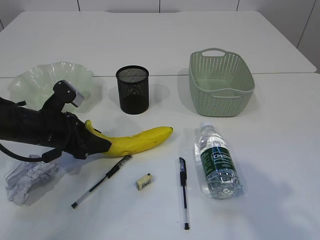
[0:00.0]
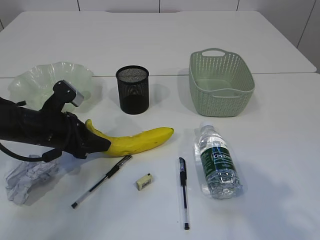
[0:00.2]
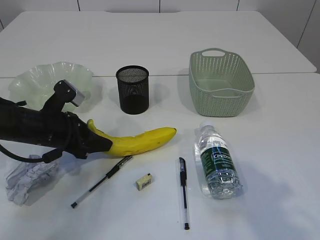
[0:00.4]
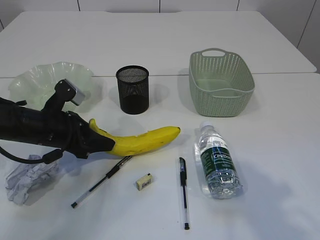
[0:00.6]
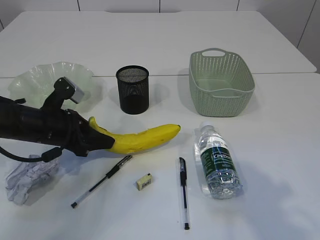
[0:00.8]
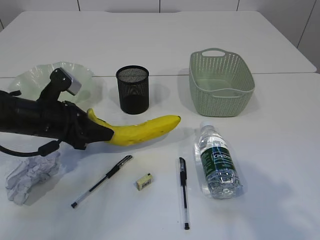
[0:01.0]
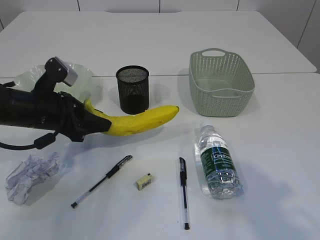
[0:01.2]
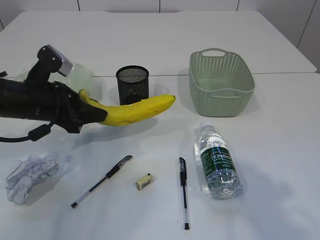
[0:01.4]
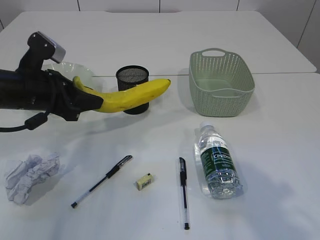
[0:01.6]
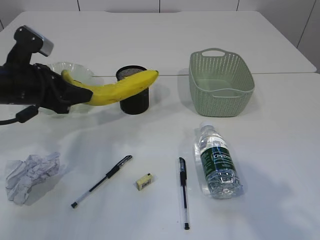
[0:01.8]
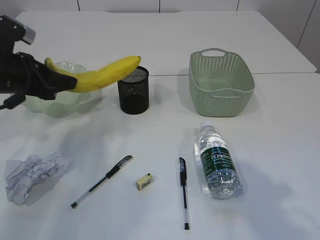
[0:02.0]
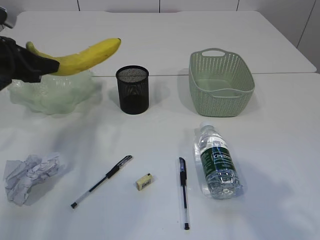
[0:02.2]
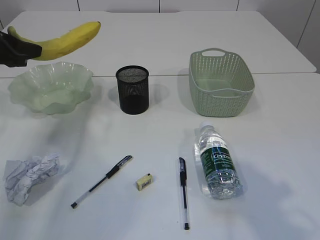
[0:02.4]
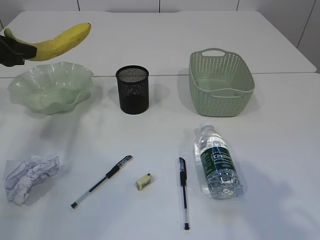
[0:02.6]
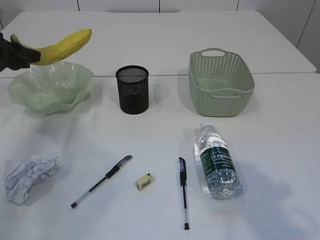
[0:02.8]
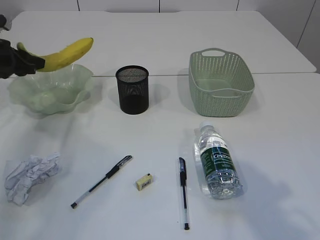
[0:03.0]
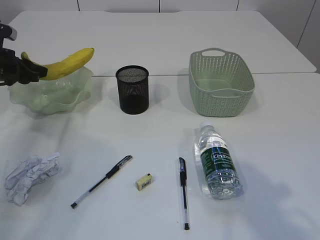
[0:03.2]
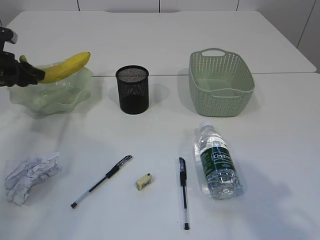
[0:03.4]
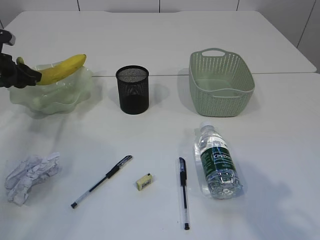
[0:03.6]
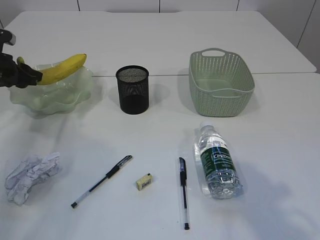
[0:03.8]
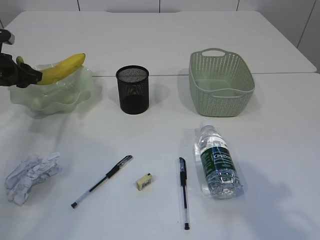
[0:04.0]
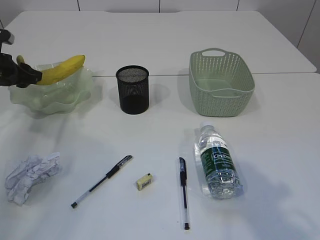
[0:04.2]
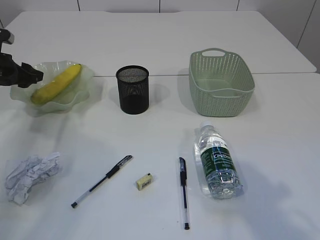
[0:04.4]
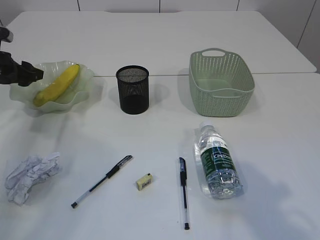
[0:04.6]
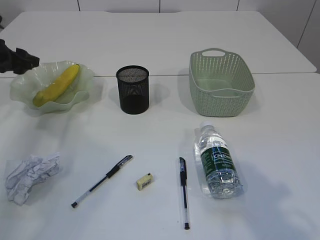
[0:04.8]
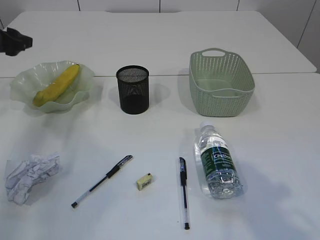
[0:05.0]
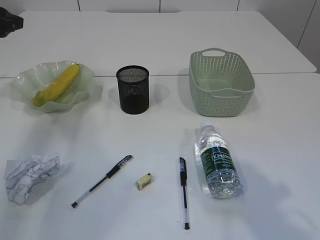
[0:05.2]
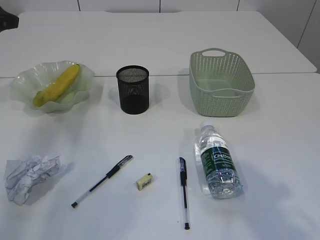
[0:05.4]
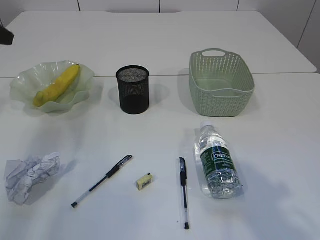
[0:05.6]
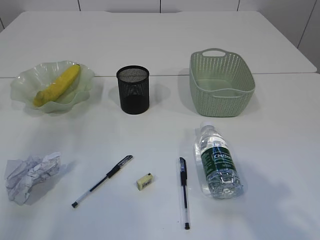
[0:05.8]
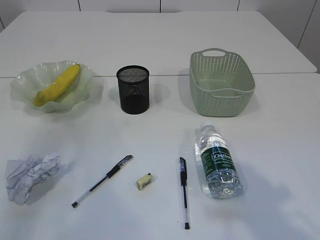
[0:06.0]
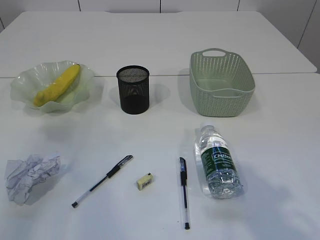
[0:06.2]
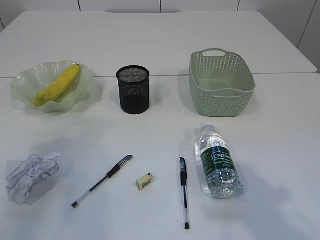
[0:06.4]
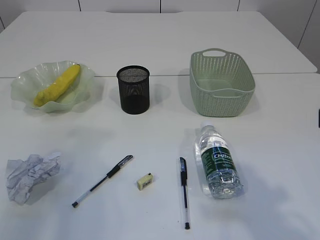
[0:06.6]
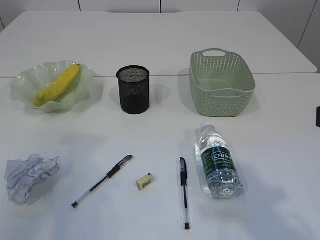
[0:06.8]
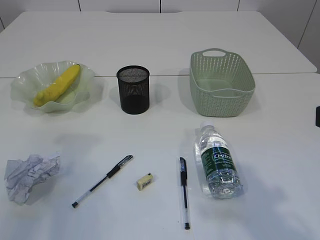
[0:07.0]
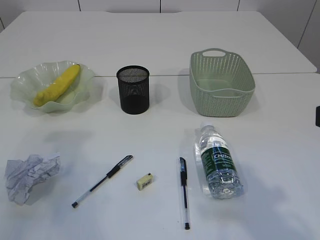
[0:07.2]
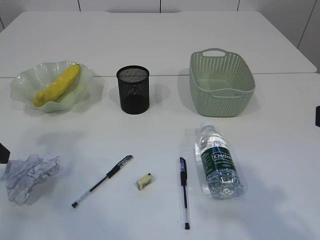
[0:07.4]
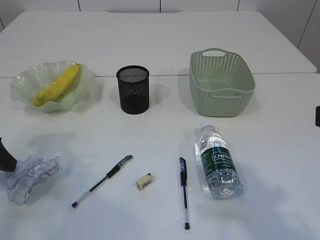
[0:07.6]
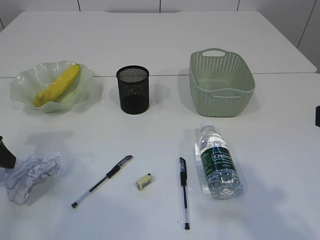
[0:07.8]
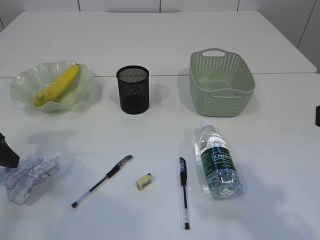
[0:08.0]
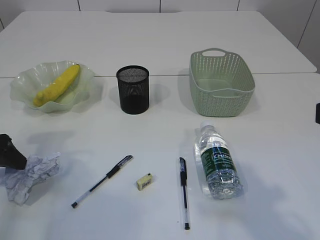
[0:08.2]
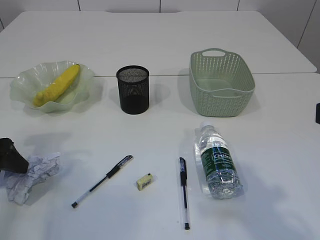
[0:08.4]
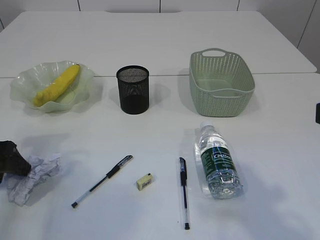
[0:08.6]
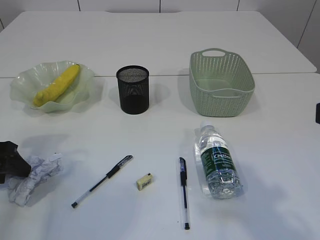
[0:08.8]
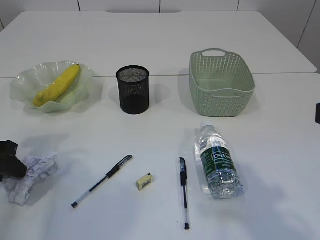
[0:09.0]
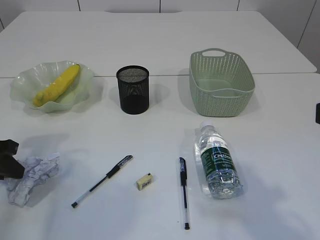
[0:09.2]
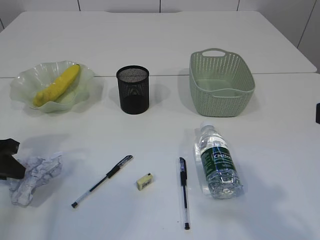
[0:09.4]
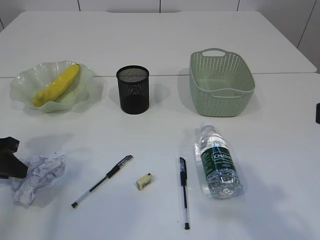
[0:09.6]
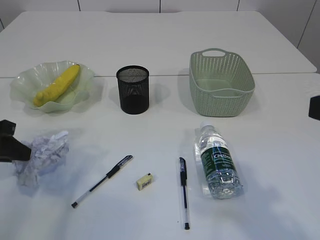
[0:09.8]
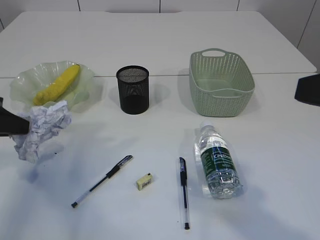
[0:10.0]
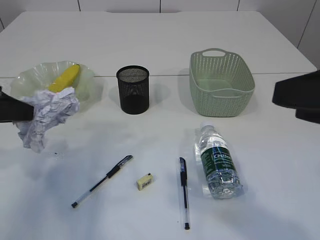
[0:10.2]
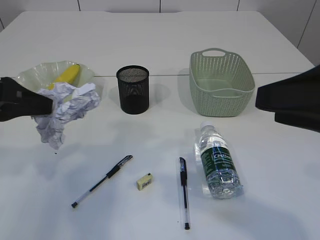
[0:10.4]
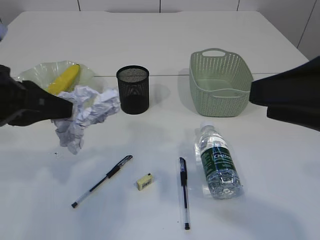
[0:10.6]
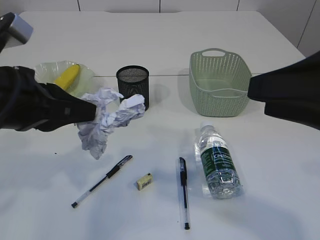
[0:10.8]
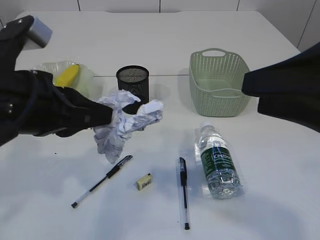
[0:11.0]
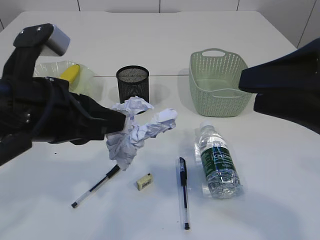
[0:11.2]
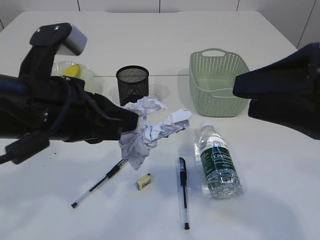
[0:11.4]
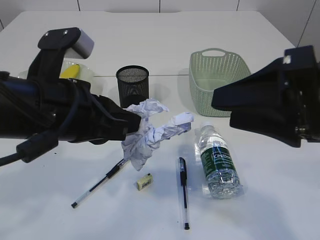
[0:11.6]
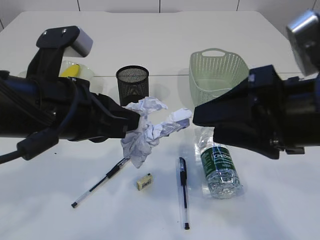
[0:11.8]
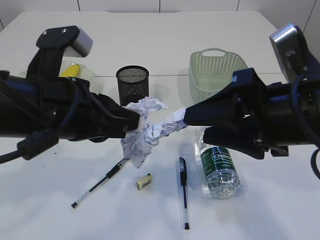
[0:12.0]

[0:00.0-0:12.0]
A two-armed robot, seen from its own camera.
Step, 0:01.6 to 0:04.8: Place the banana in the plate.
Step, 0:05.0 to 0:09.8: Pick up the waste paper.
0:00.0 to 0:01.6: The left gripper moves upward, some 10 cm.
0:01.6 to 0:03.0: The left gripper shifts approximately 15 cm to the left and forward.
0:03.0 to 0:04.4: The grippers make only small movements.
0:04.4 to 0:06.0: The left gripper heads upward and backward, covering approximately 20 cm.
0:06.0 to 0:07.6: The left gripper moves downward and backward, roughly 15 cm.
0:07.6 to 0:09.0: The left gripper closes.
0:09.0 to 0:10.4: The left gripper shifts about 15 cm upward and to the right, and closes.
0:10.4 to 0:12.0: The left gripper moves to the right, roughly 15 cm; the right gripper heads to the left and forward, covering roughly 10 cm.

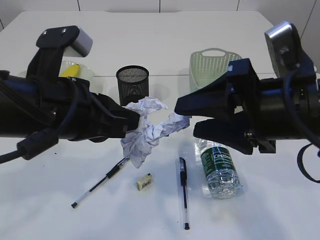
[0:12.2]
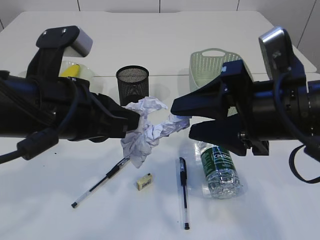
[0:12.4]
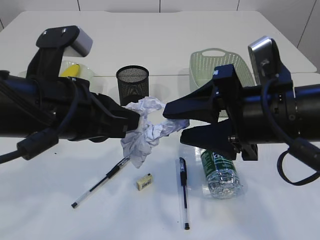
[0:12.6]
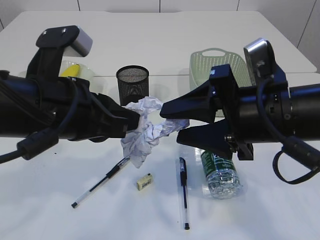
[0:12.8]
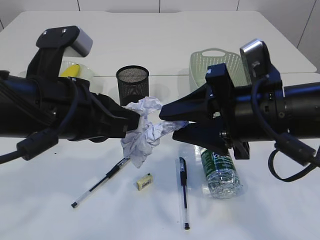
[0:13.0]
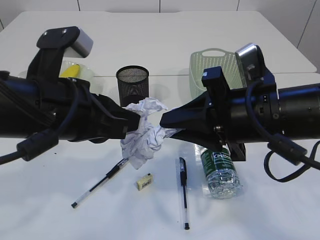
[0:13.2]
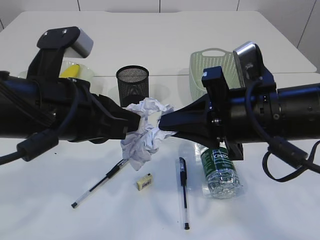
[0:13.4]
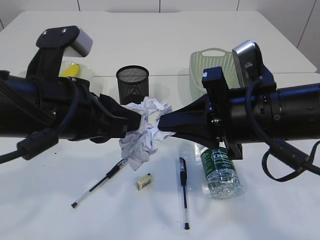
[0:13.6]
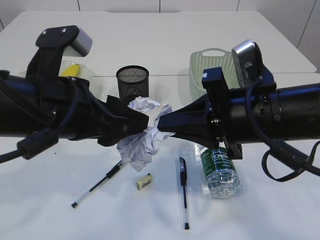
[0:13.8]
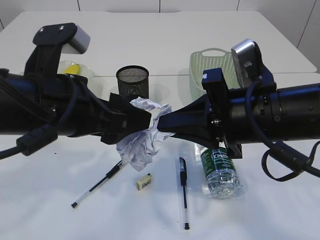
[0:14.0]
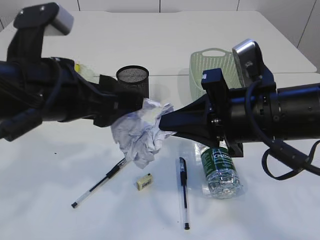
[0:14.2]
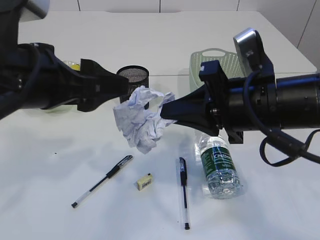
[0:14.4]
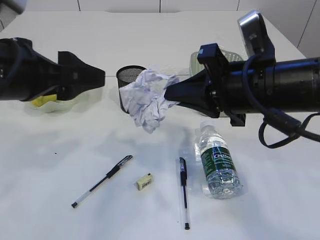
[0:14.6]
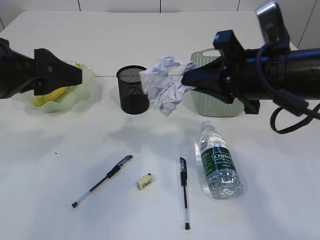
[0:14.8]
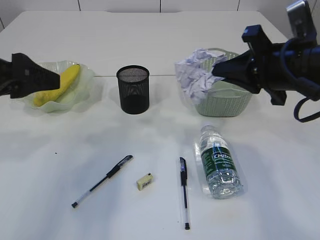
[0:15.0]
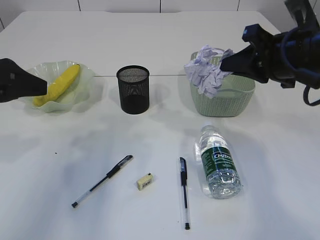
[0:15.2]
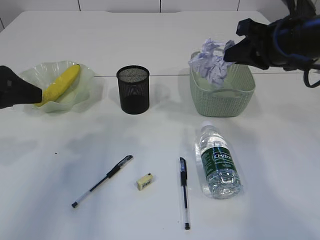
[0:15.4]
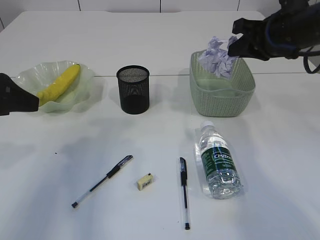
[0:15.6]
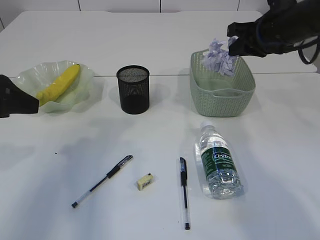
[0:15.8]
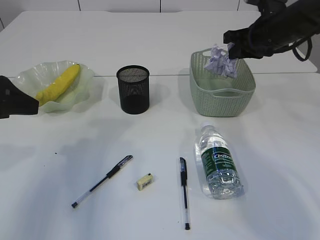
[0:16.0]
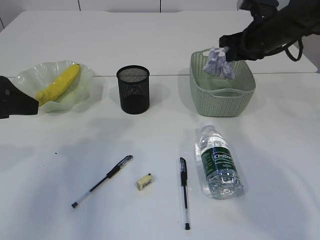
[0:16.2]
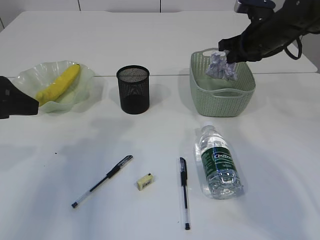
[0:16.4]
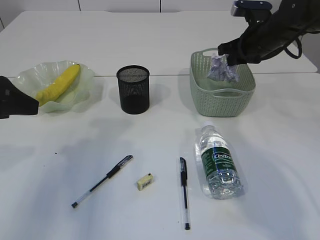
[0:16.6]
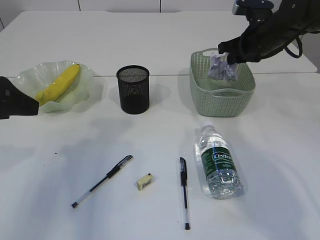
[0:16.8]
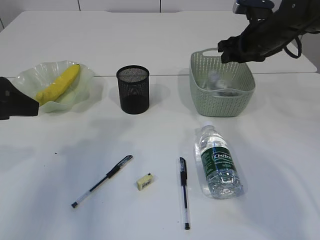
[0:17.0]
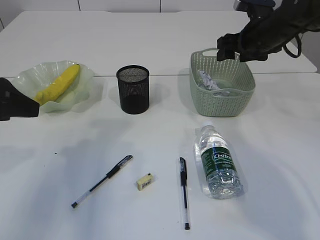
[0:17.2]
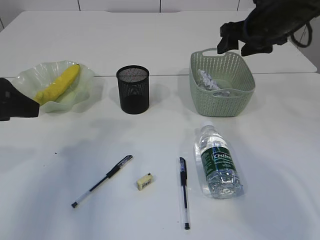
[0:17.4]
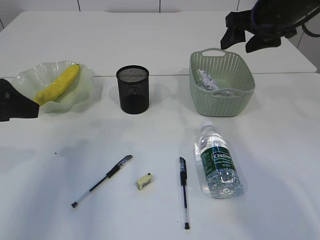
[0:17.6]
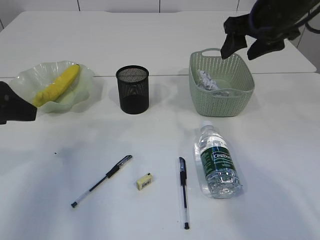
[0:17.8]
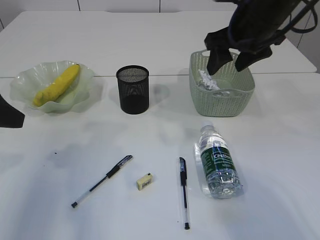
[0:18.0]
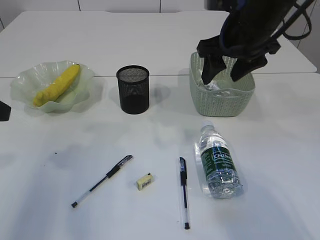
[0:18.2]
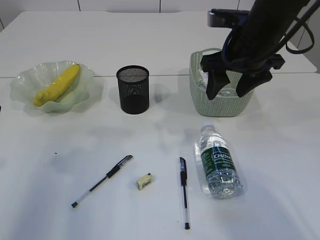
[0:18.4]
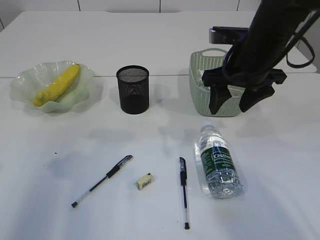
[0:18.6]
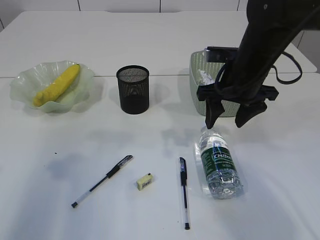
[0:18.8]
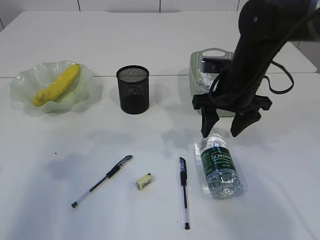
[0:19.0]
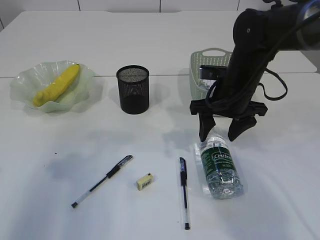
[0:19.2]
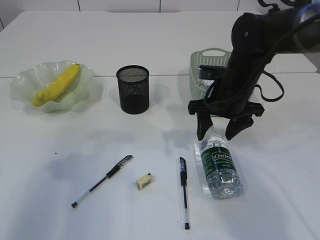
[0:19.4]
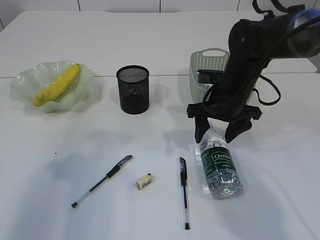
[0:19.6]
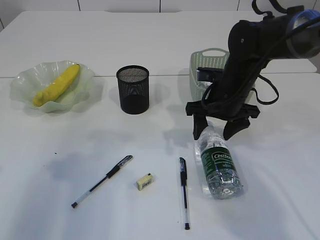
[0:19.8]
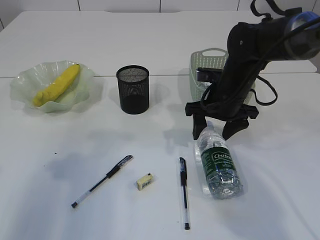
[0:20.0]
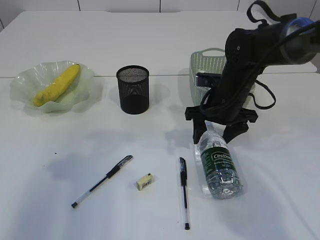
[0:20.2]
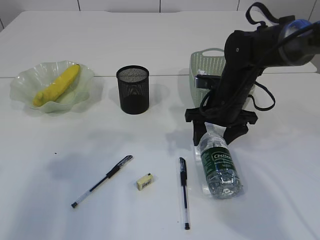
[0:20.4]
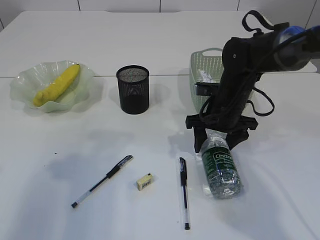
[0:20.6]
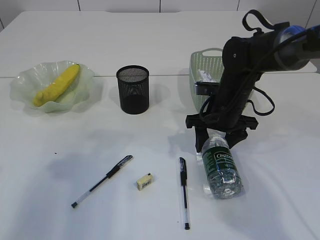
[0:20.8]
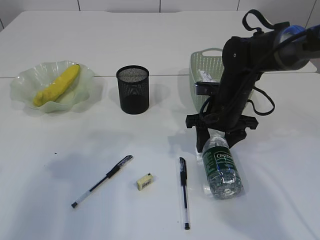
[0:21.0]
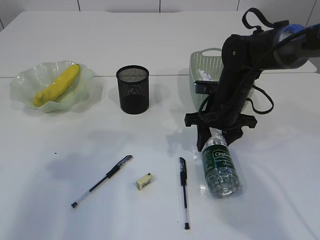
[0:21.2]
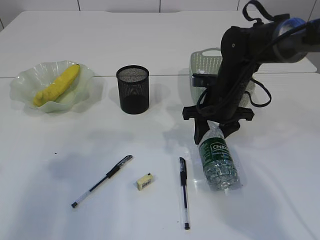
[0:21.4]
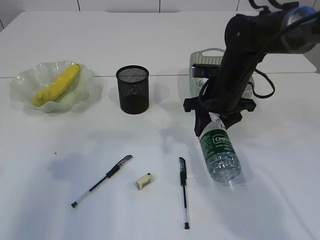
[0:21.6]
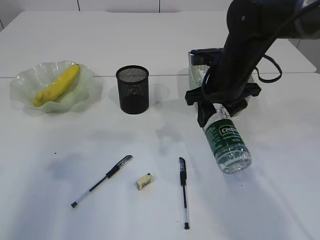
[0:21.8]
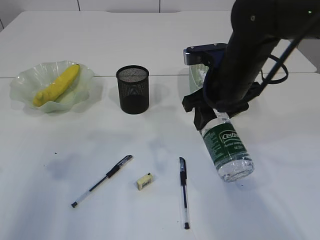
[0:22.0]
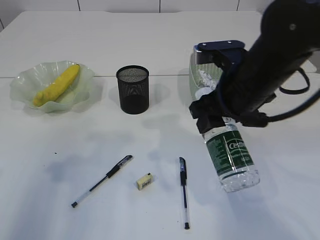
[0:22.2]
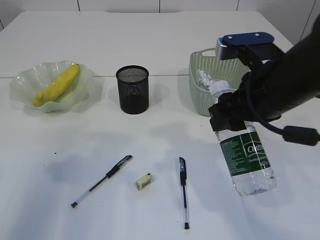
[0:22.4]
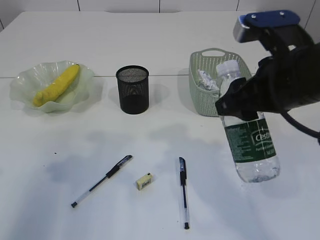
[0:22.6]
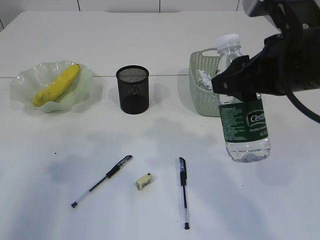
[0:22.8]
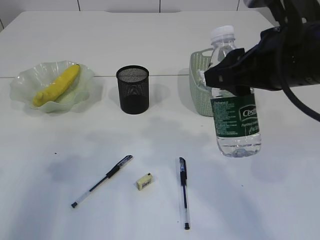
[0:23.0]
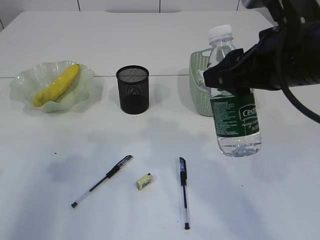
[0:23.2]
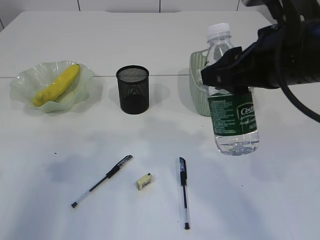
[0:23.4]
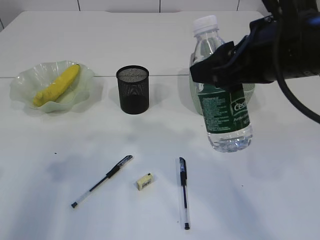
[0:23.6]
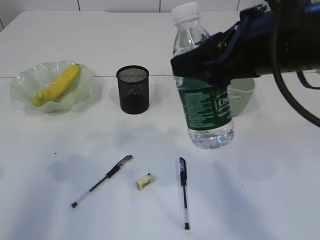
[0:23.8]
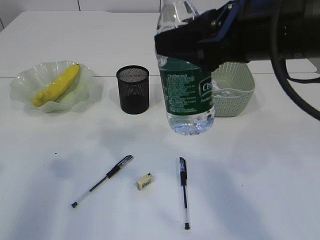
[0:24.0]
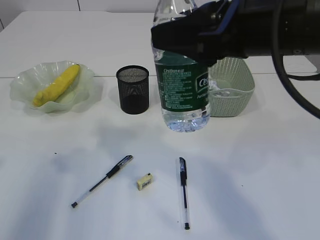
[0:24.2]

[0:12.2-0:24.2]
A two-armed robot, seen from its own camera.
Step, 0:12.2 to 0:14.4: Hand over the waste paper.
Step, 0:14.6 to 0:17.4: Place the waste paper in the basket.
Step, 0:17.6 to 0:22.0: Pick up the bottle with the right arm.
0:12.2 to 0:13.8: The left gripper opens its fingers; the right gripper closes its fingers.
0:13.8 to 0:15.2: The right gripper heads to the right and forward, covering some 10 cm; the left gripper shifts roughly 15 cm to the left.
0:15.2 to 0:16.6: The right gripper goes roughly 15 cm forward.
0:16.6 to 0:18.2: The right gripper moves backward, to the left and upward, approximately 15 cm, and opens its fingers.
0:18.2 to 0:19.8: The right gripper goes approximately 15 cm downward.
0:19.8 to 0:21.2: There are only small adjustments of the grippers.
0:21.2 to 0:22.6: The right gripper travels backward and upward by about 20 cm.
0:22.6 to 0:24.2: The right gripper goes approximately 5 cm upward.
